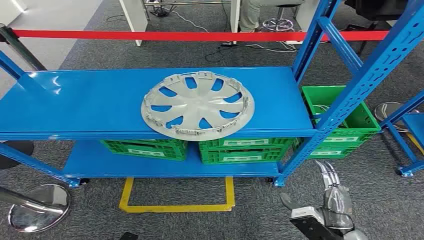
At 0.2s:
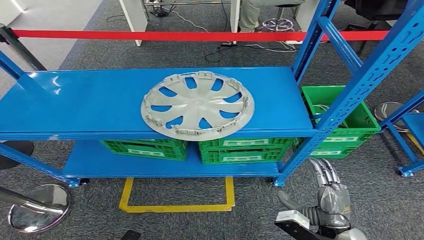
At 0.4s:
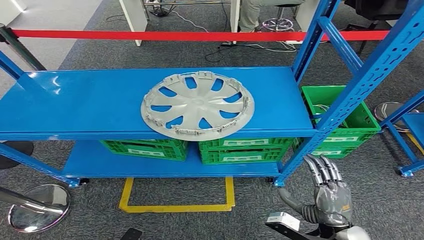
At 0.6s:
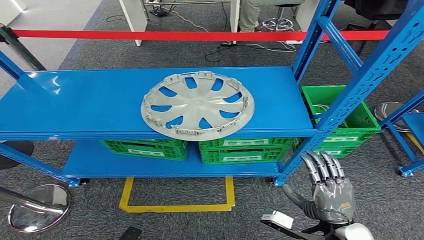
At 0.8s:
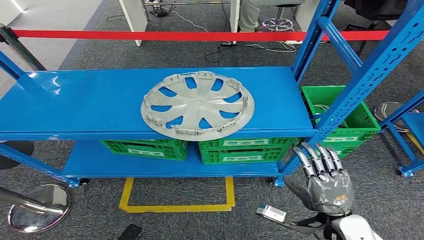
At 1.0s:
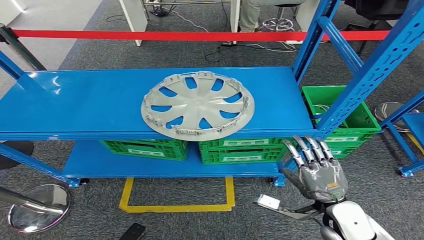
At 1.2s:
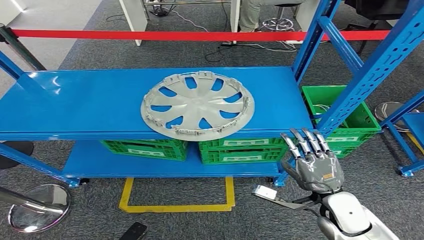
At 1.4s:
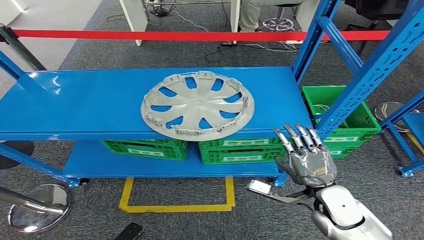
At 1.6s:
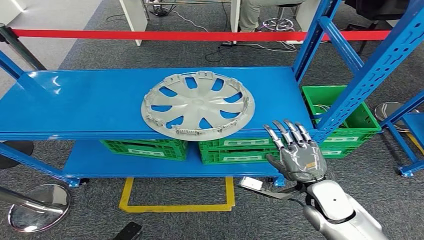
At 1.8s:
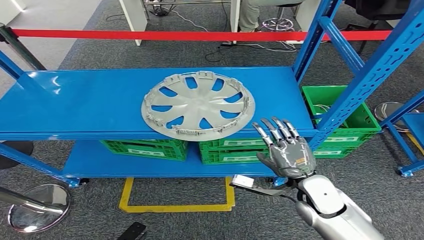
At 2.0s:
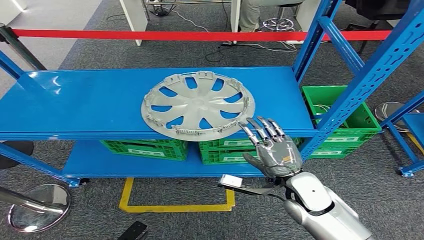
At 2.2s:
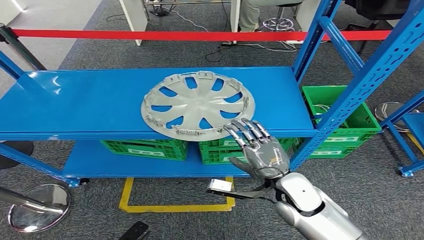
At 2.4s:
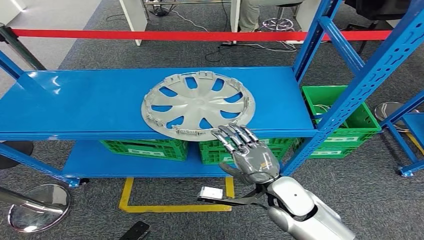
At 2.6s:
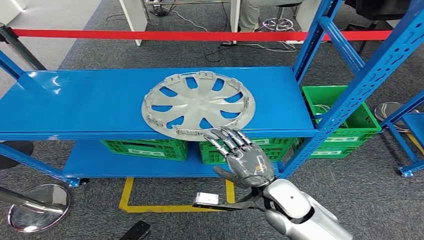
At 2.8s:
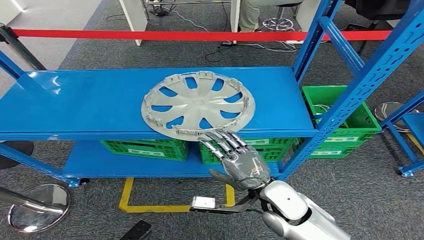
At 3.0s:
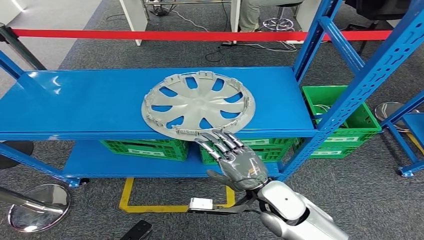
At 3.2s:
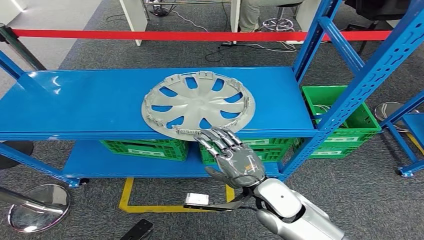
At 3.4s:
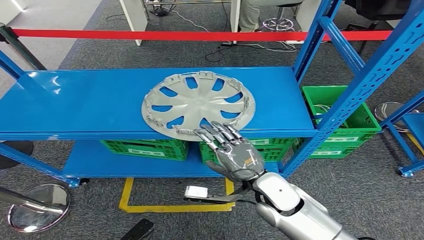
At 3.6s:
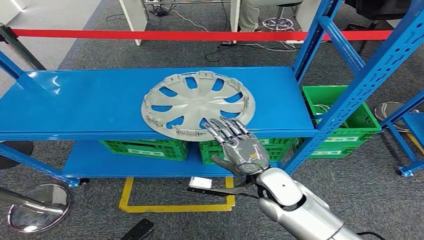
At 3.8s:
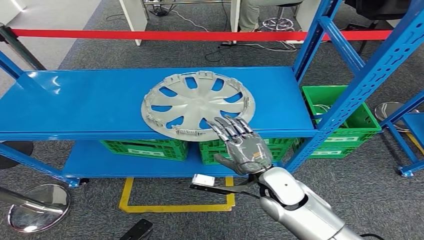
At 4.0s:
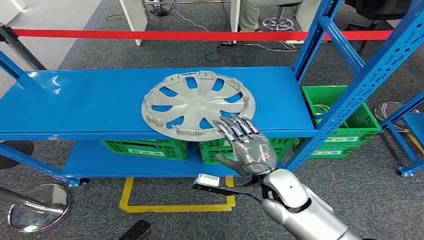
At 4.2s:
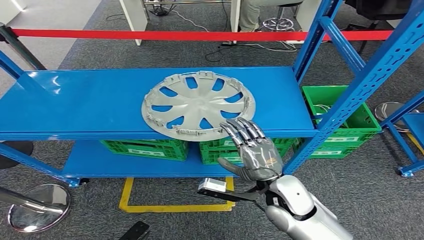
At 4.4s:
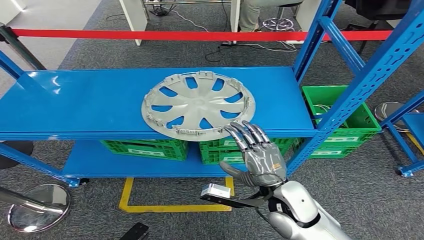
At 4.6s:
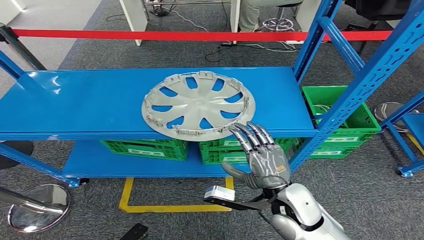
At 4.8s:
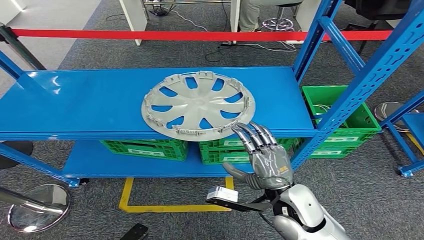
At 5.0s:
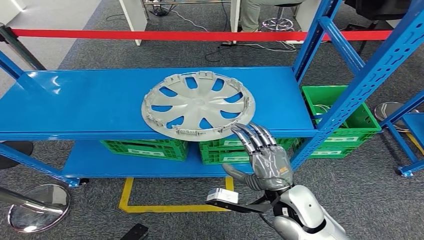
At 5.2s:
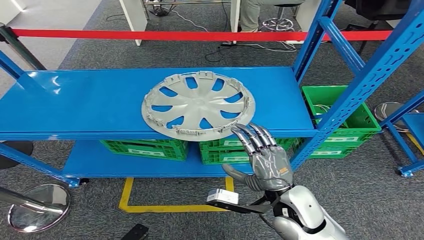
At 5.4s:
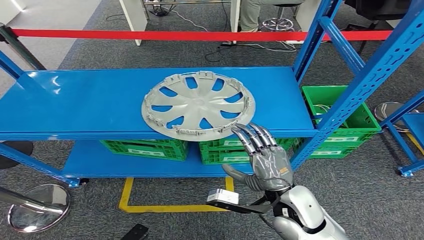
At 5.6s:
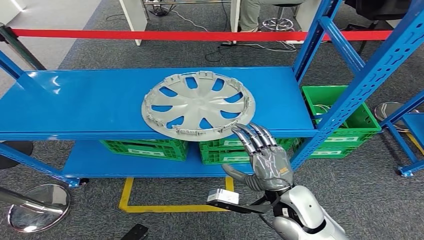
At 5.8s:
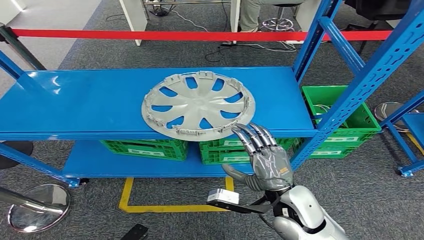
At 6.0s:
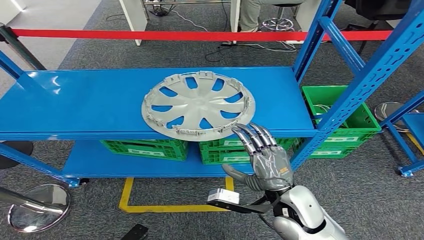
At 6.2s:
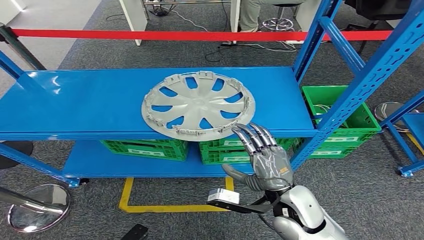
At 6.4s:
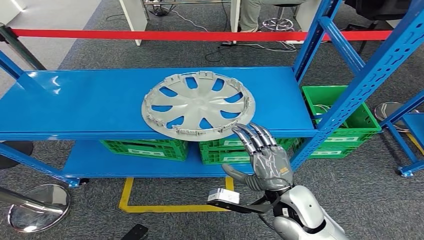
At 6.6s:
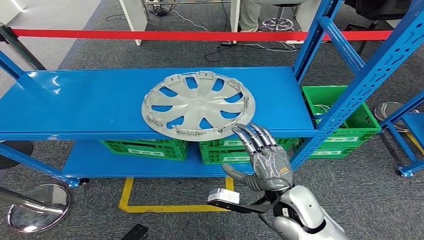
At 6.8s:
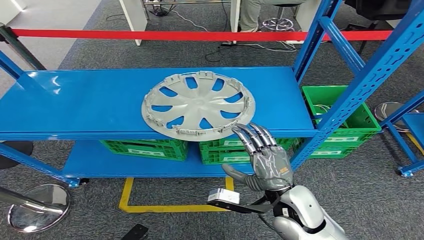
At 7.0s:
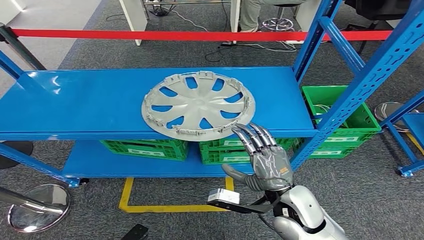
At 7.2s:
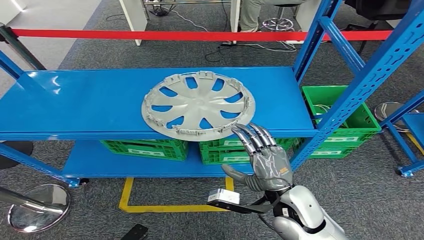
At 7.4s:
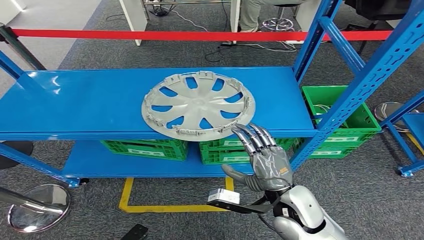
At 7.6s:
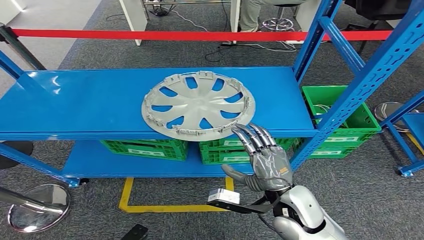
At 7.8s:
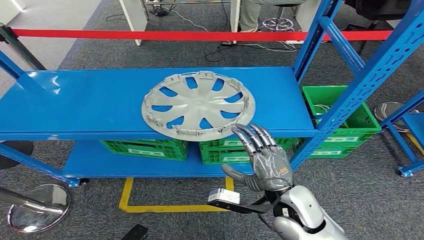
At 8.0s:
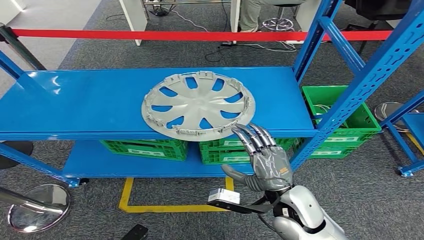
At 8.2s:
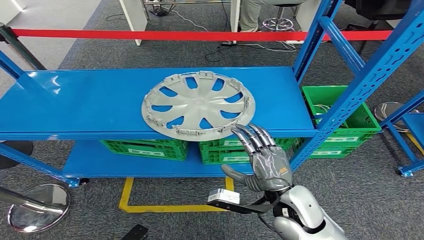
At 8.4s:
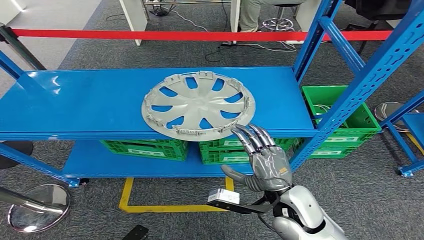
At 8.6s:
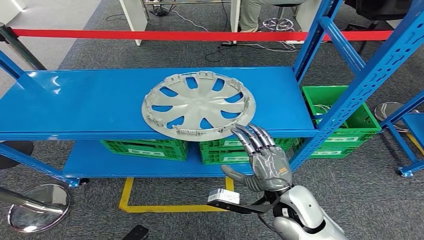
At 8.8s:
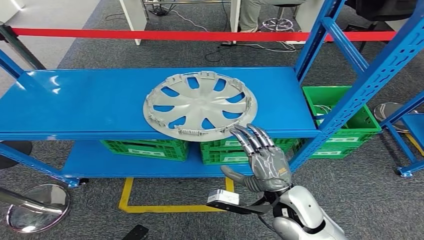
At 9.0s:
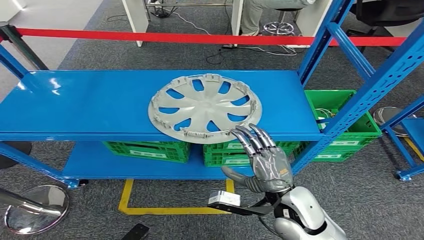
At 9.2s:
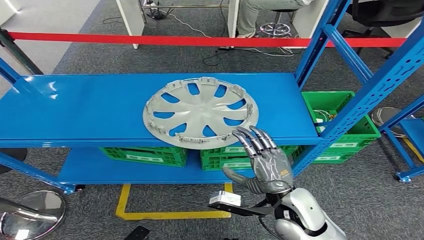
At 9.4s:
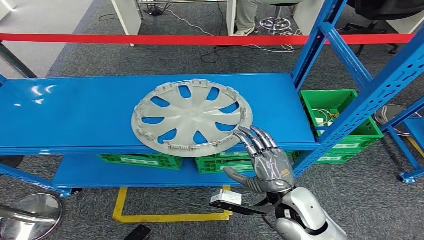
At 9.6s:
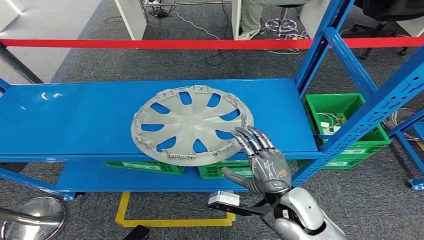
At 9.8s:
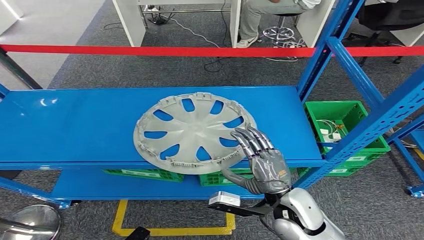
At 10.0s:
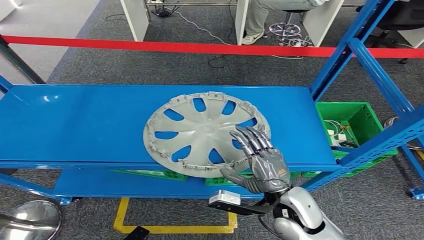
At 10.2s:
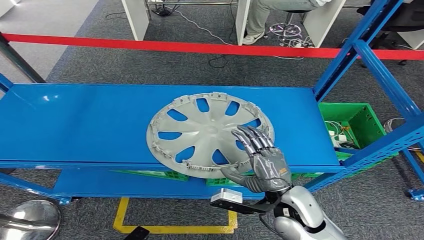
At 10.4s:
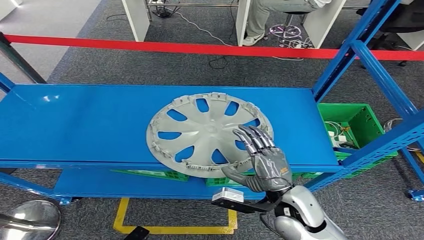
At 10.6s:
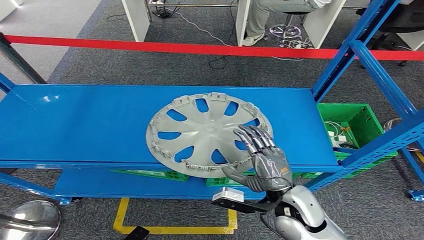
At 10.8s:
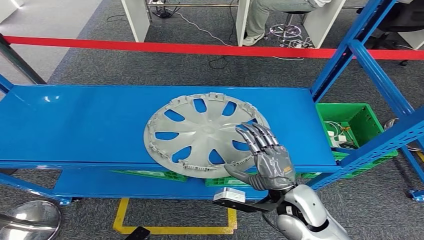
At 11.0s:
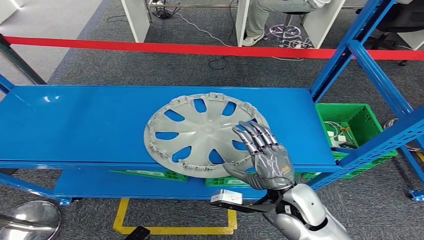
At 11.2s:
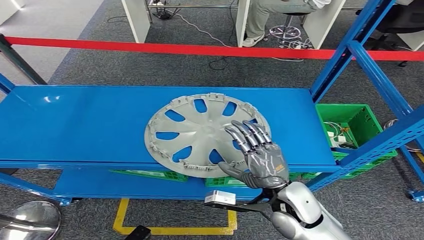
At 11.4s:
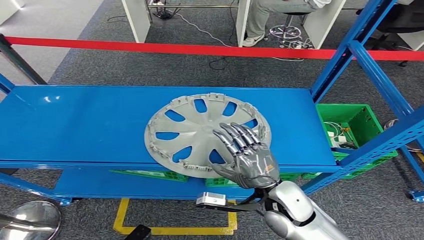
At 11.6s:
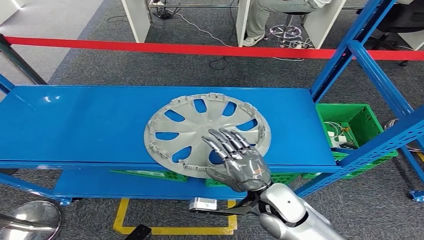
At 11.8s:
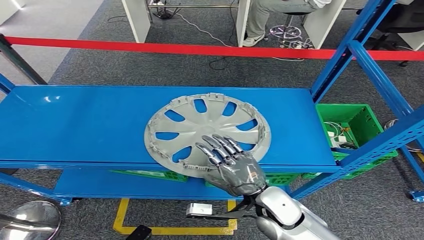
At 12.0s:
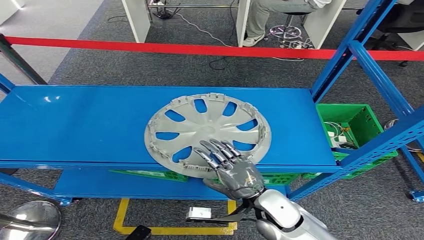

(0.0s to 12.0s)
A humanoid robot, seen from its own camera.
1.6s - 3.0s: The right hand heads to the left, covering roughly 10 cm.
3.0s - 4.4s: The hands make only small movements.
4.4s - 6.0s: Neither hand changes place.
6.0s - 7.6s: Neither hand changes place.
10.4s - 12.0s: The hands move only a little.

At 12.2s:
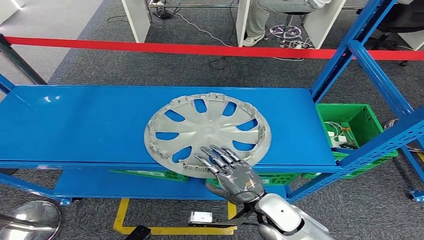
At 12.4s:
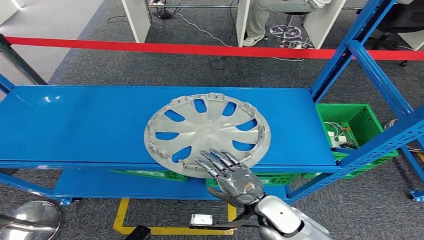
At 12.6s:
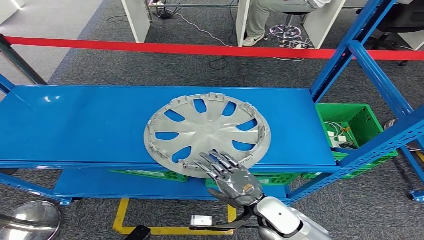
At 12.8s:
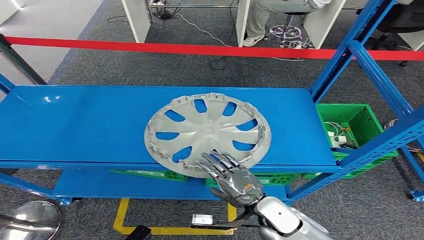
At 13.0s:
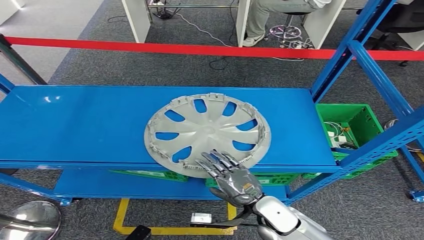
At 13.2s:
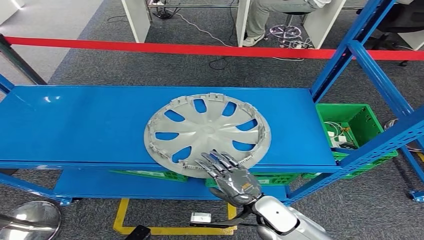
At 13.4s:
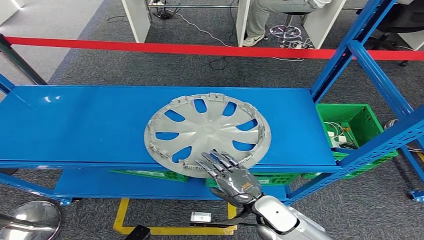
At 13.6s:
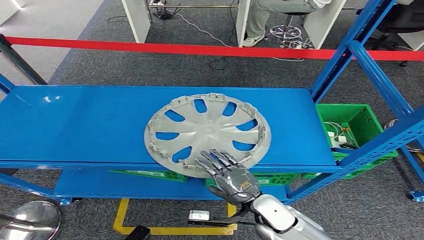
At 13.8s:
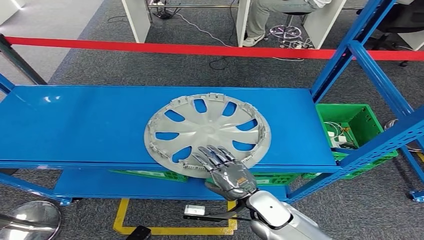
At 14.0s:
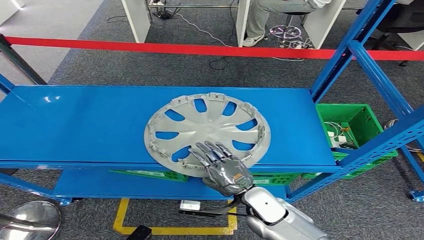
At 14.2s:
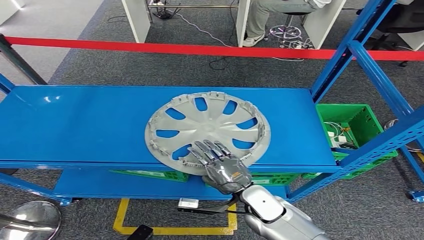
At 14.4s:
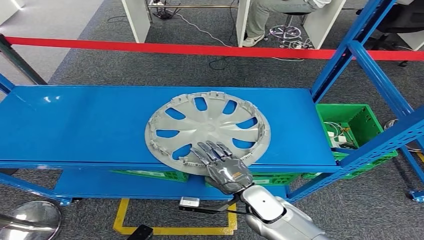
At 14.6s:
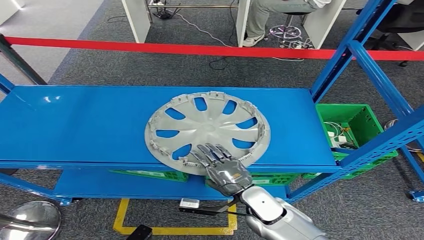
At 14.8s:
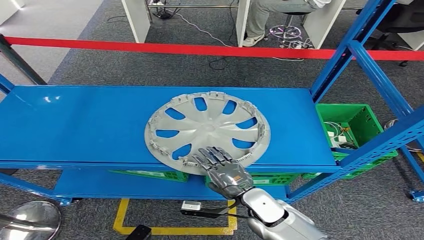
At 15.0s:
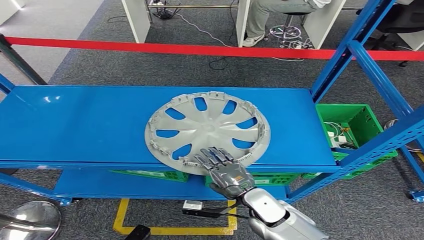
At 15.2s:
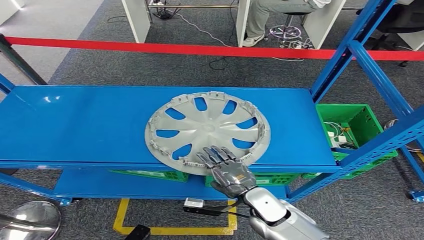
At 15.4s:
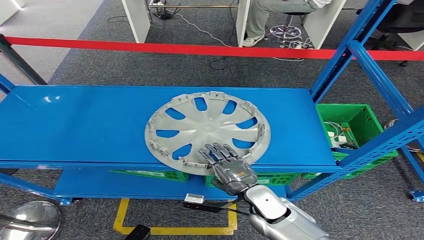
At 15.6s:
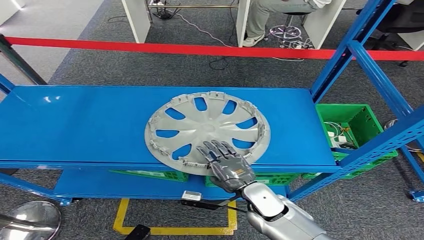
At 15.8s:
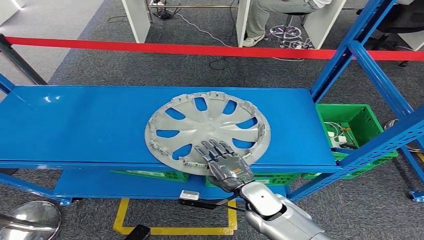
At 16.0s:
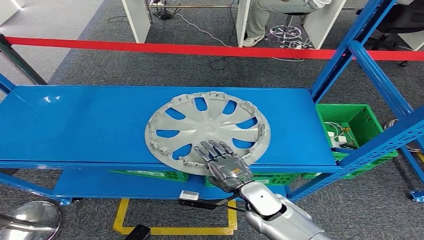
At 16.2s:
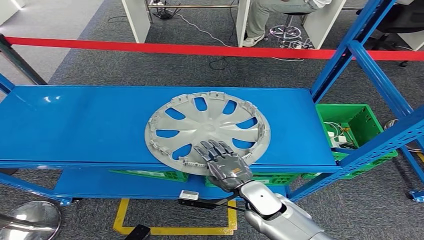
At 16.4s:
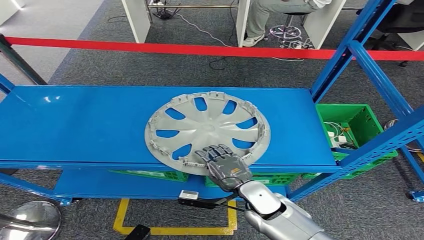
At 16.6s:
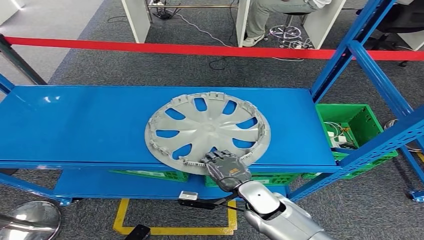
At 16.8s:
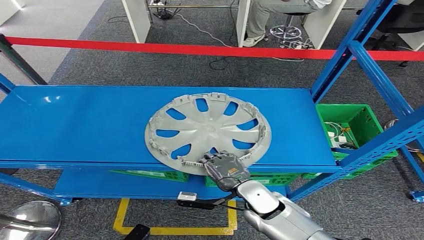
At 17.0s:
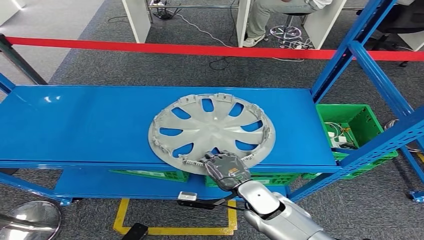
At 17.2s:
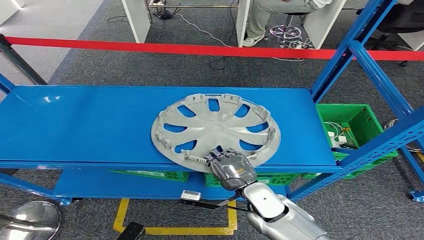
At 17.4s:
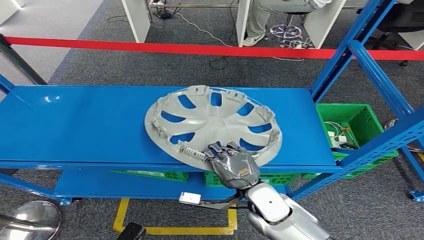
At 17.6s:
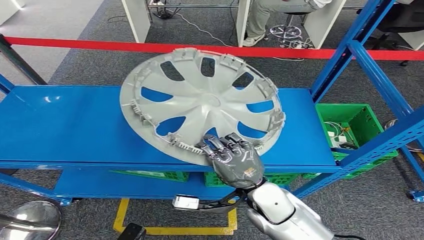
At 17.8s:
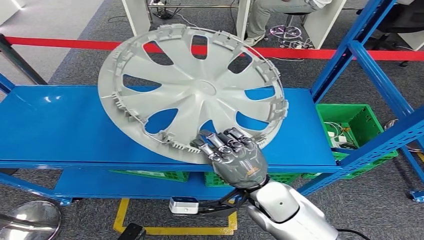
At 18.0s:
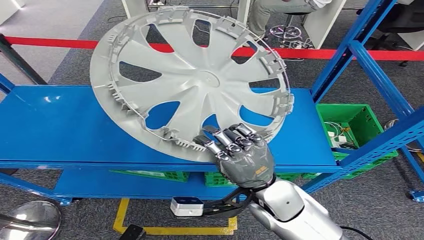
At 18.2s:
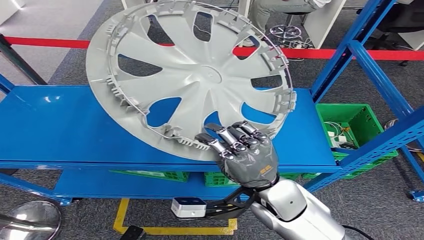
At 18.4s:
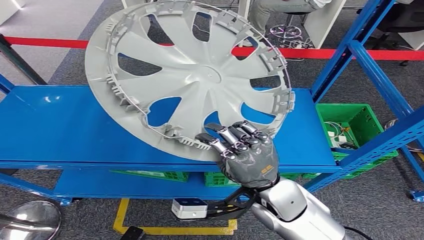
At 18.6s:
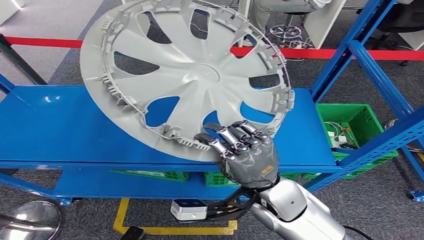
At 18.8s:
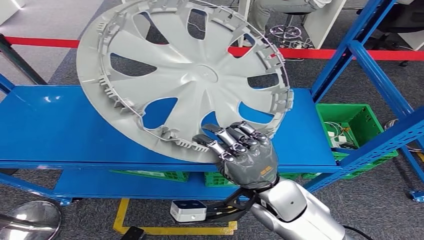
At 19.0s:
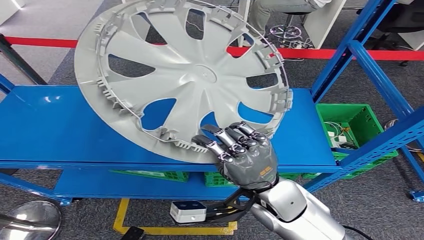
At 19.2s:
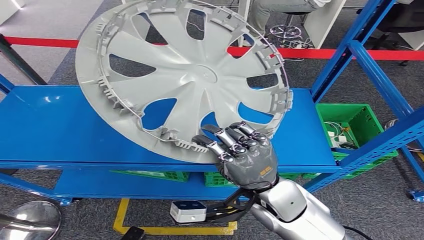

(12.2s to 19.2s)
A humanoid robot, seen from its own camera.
12.2s - 16.4s: The hands stay close to where they were, moving slightly.
